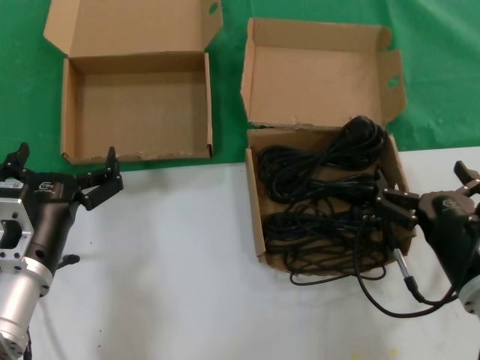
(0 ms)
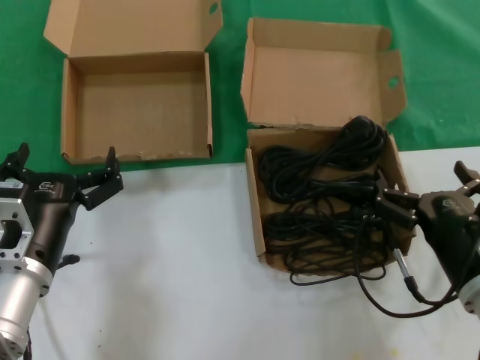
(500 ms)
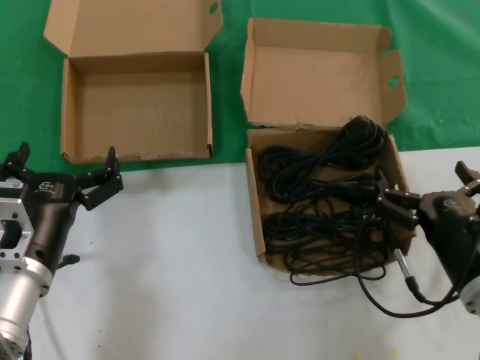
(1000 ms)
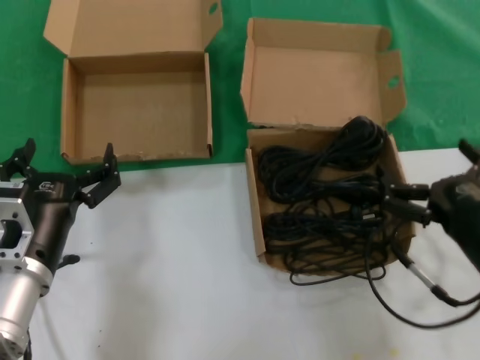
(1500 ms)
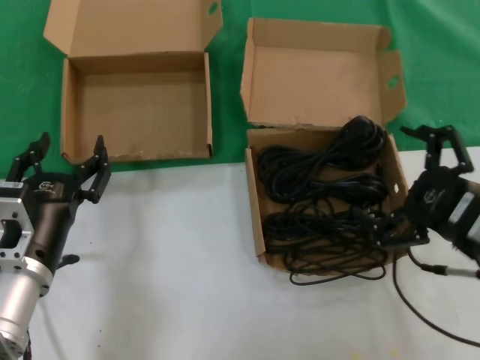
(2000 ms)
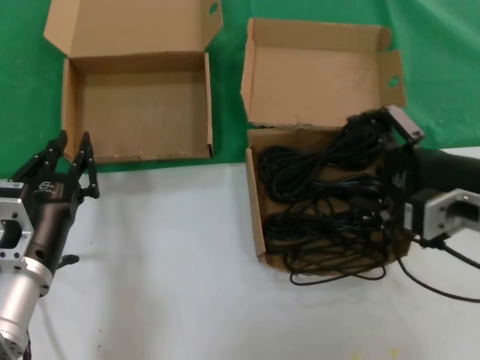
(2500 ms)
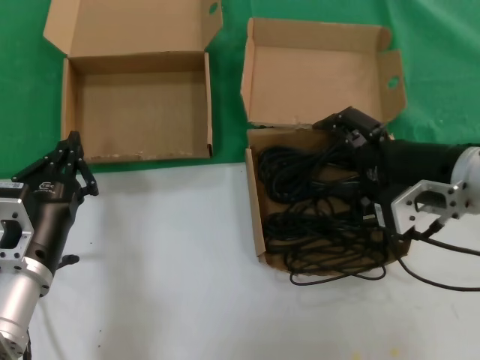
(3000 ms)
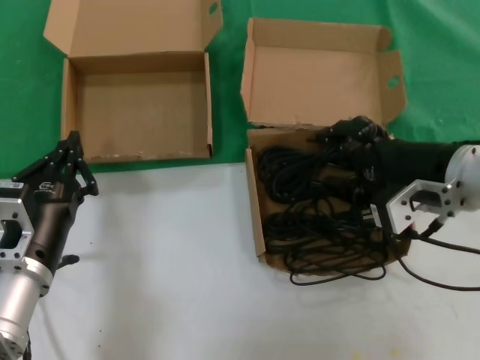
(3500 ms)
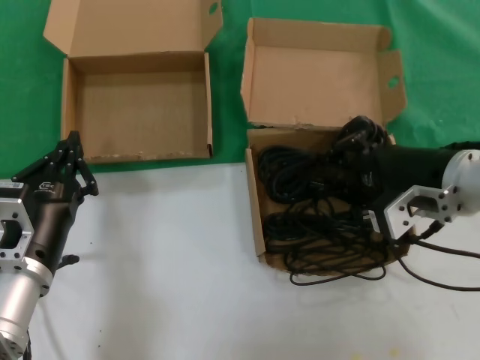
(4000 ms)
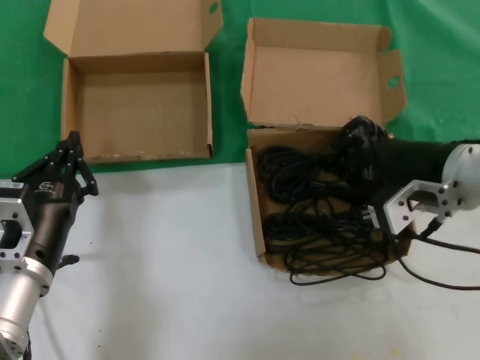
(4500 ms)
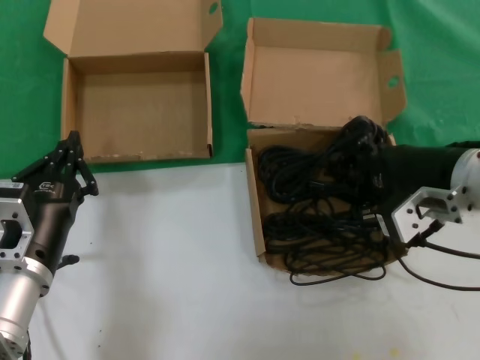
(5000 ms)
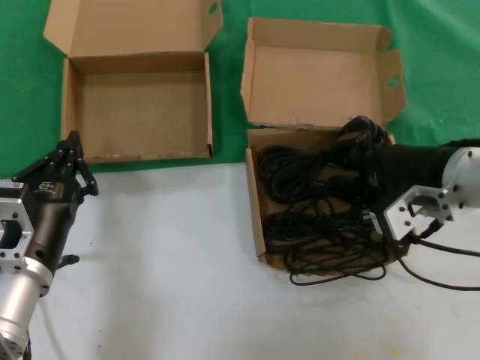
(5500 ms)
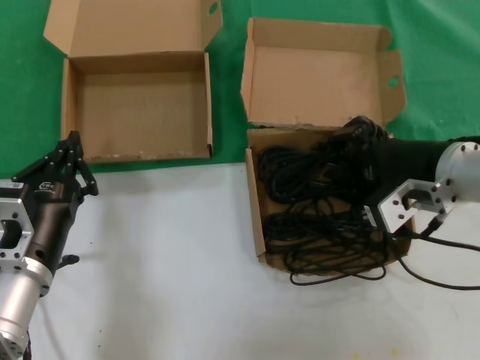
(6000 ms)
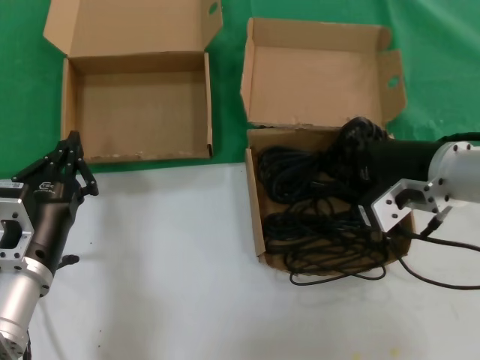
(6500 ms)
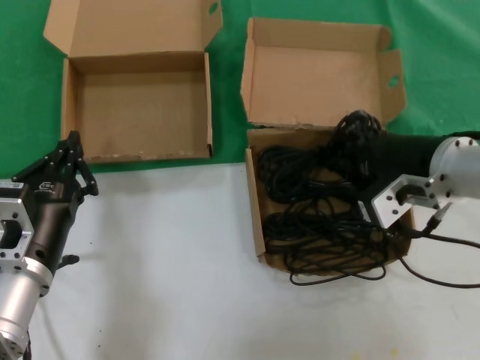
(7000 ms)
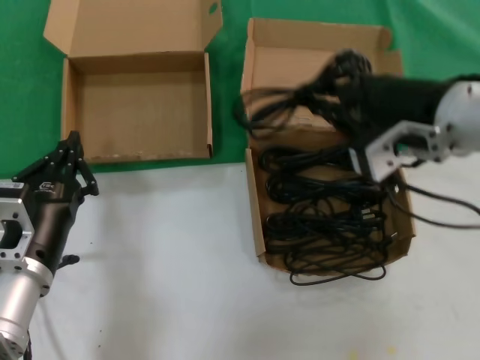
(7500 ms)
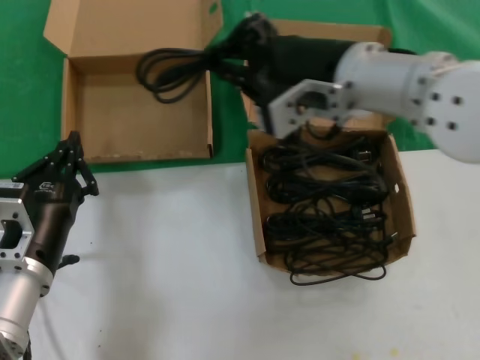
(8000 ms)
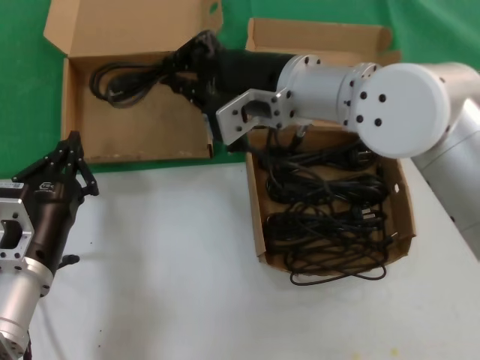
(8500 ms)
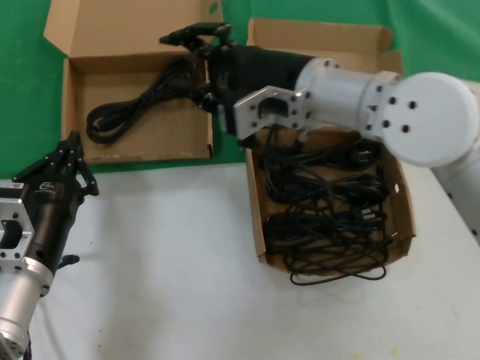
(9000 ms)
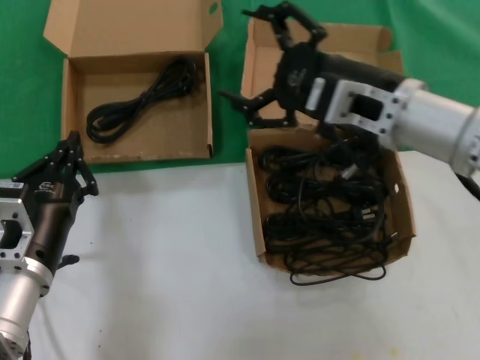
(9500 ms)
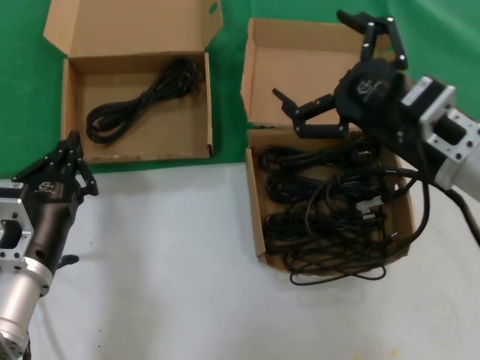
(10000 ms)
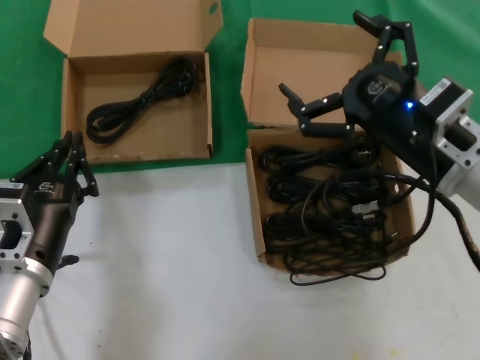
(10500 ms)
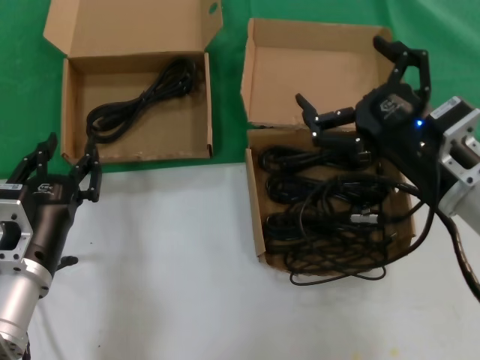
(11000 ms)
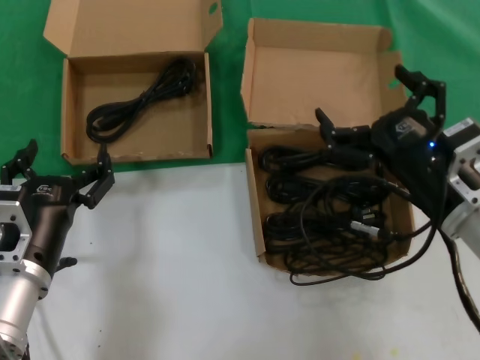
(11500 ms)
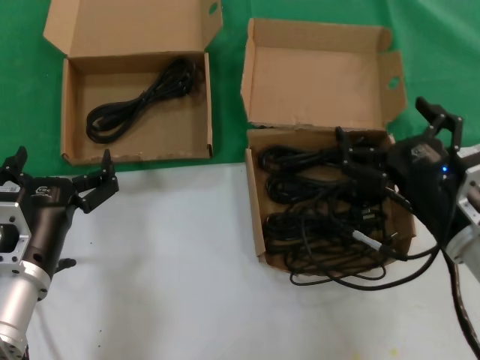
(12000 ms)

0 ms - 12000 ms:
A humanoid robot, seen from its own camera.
Task of the whole recording: take the parts from the box containing them and put them into an empty box.
Step, 0 ms - 6500 ms: Grasp the data cable.
Step, 7000 ms - 8500 ms: Place the data cable in the another box.
0 ms - 2000 ms: The right hand moves upward, about 10 cm.
2000 ms - 4000 ms: The right hand goes about 10 cm forward.
4000 ms - 6000 ms: There are only small adjustments of the hands.
6000 ms - 8000 ms: The right hand shifts roughly 15 cm to the left and upward.
8000 ms - 10000 ms: The right hand travels to the right and downward by about 15 cm.
10000 ms - 12000 ms: The right hand heads downward, covering some 10 cm.

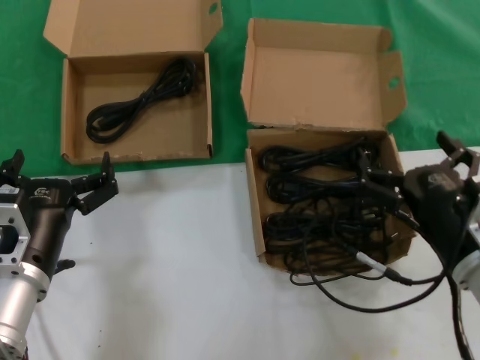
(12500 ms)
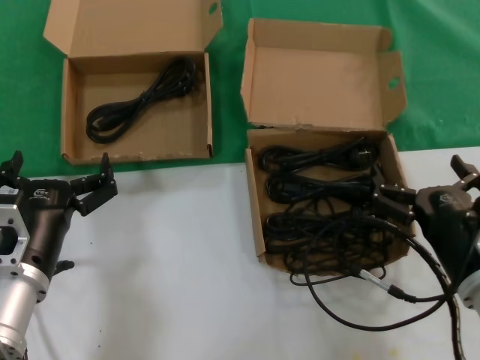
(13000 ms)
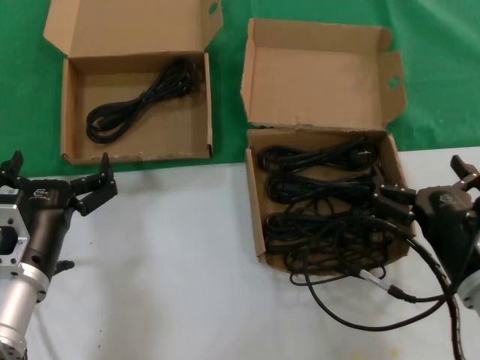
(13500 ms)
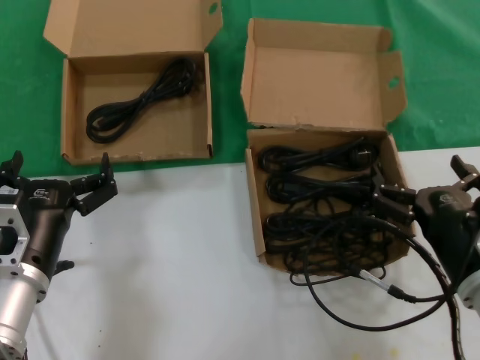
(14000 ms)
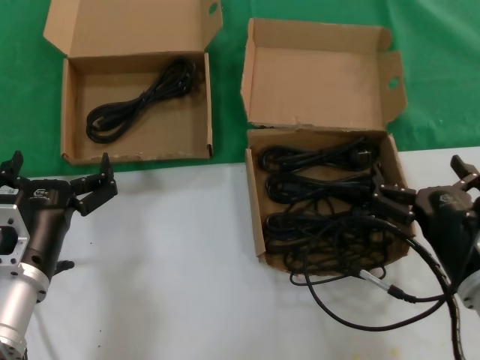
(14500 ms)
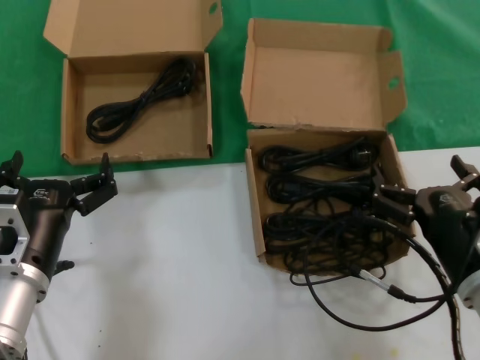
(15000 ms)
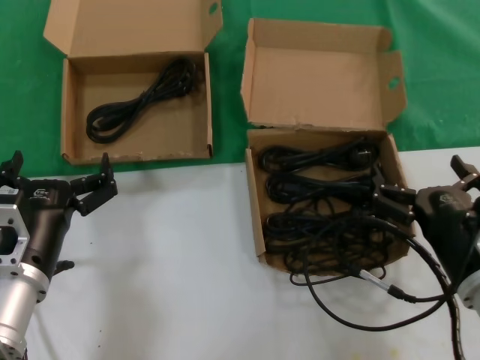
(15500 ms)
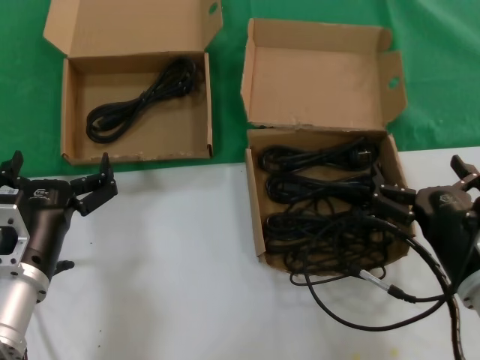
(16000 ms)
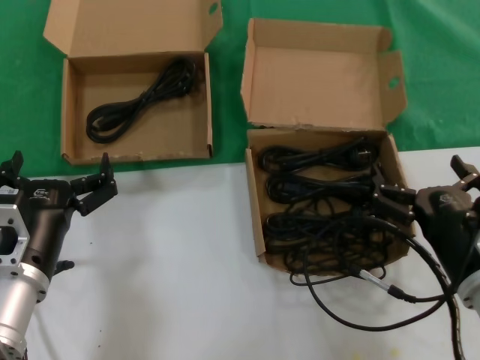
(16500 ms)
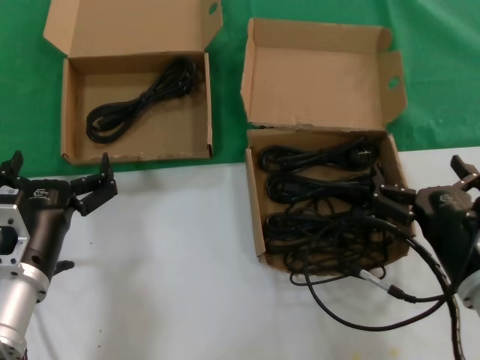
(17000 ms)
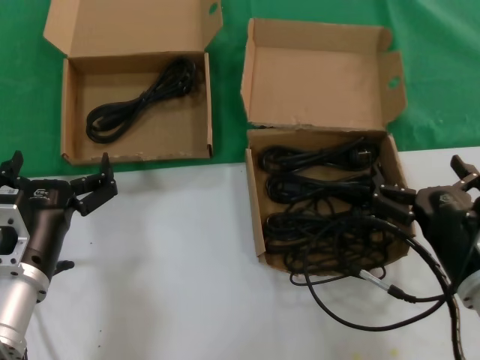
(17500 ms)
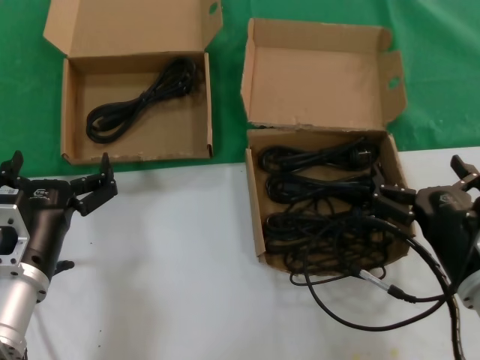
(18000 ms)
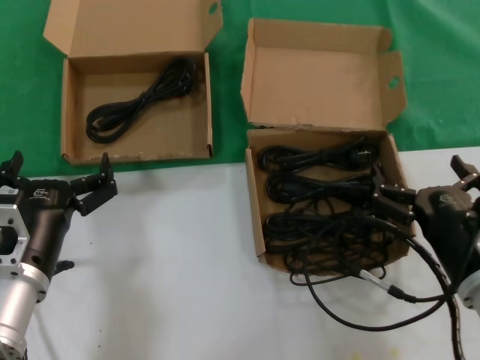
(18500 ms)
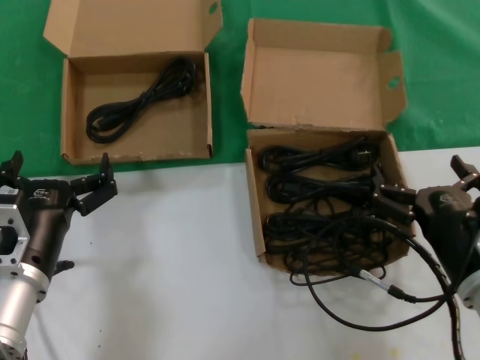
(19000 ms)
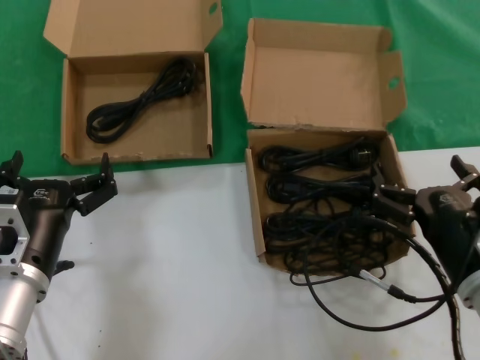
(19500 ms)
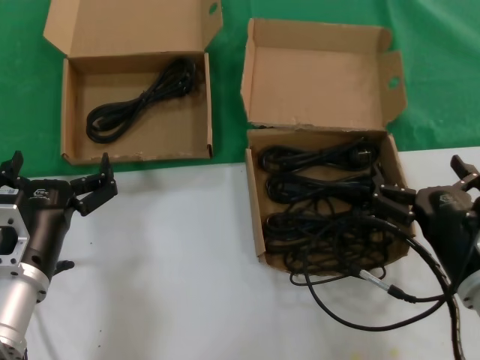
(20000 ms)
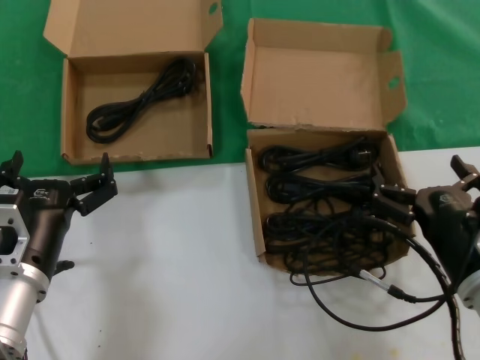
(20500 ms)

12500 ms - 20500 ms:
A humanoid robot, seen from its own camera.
Task of the whole recording: take the parts from the box containing them and put them into an empty box.
12500 ms - 14500 ms: The hands make only small movements.
14500 ms - 20500 ms: The two hands keep their place.

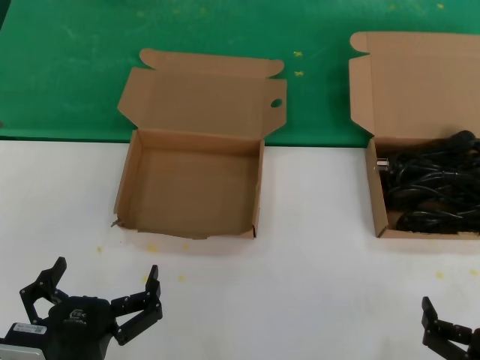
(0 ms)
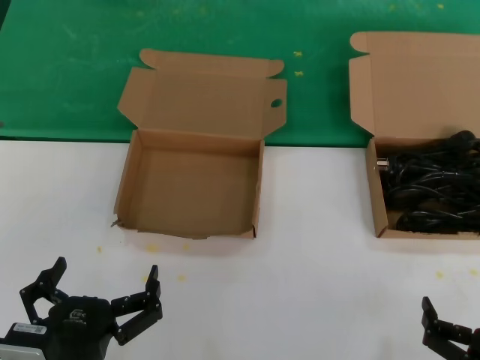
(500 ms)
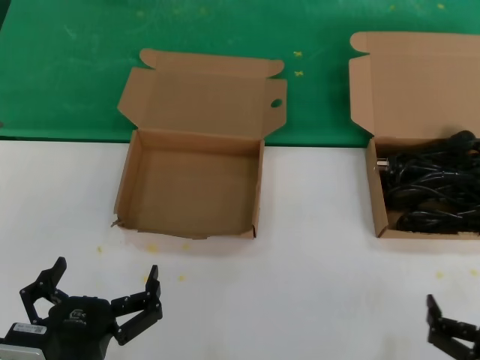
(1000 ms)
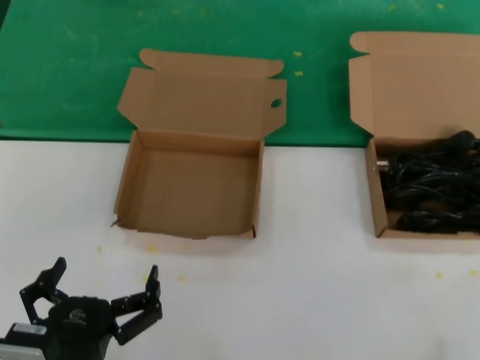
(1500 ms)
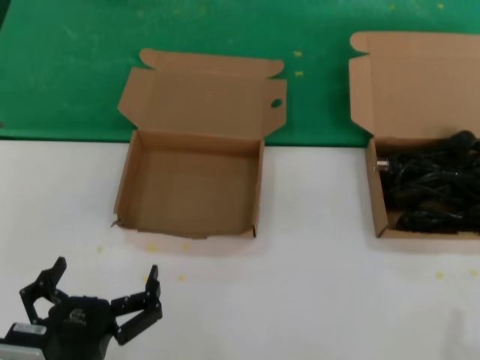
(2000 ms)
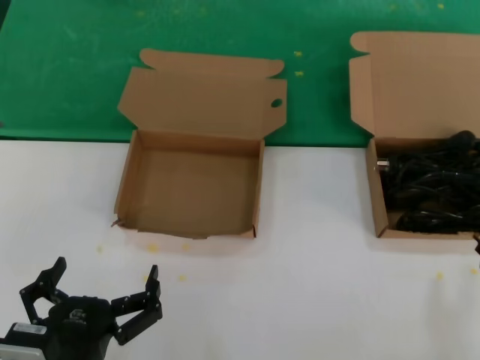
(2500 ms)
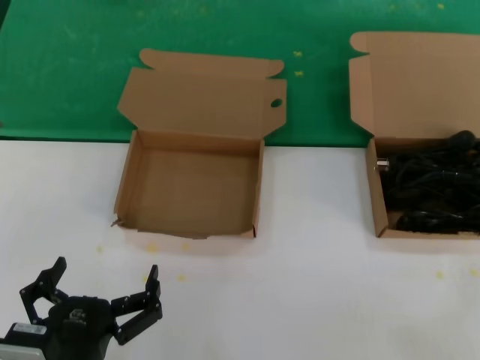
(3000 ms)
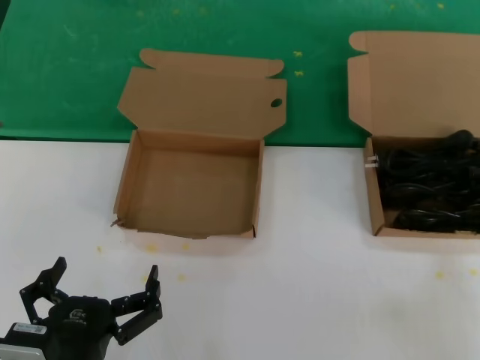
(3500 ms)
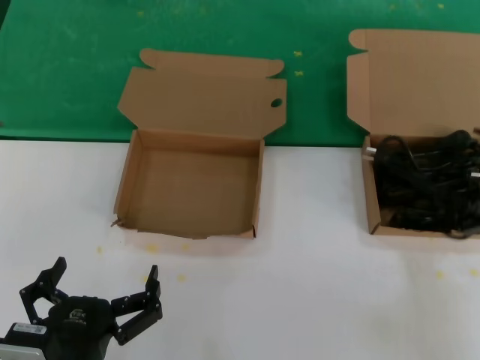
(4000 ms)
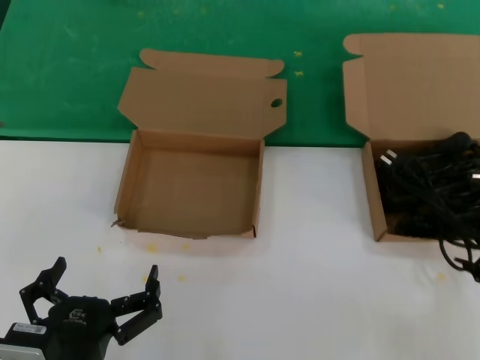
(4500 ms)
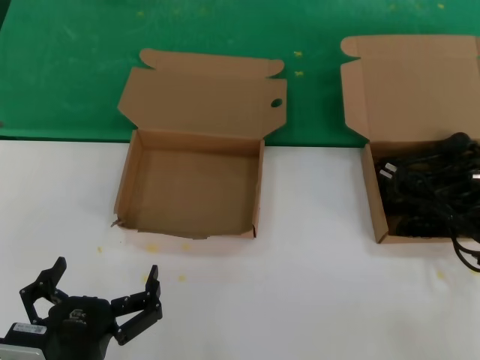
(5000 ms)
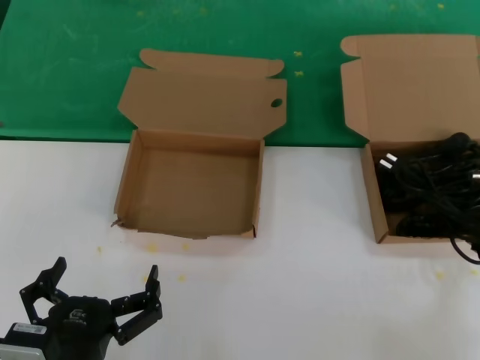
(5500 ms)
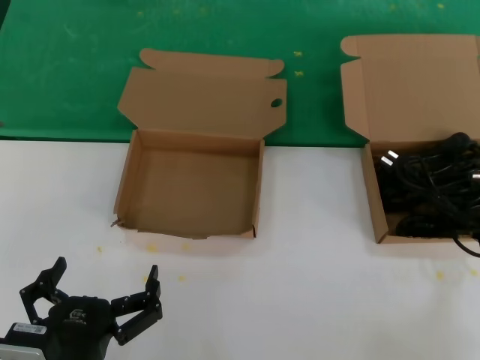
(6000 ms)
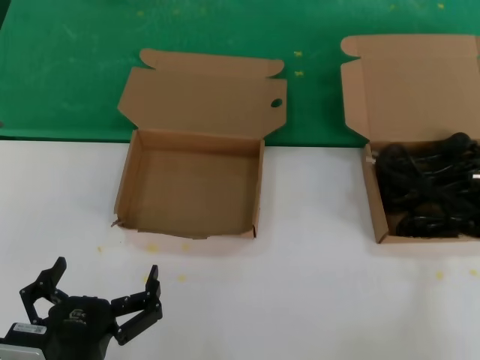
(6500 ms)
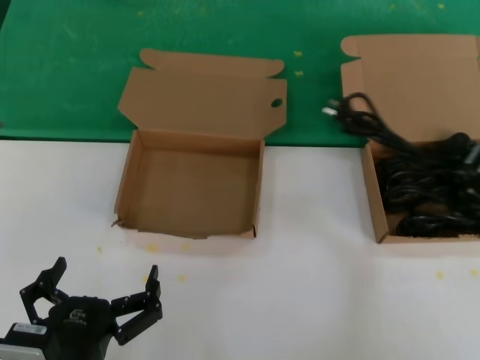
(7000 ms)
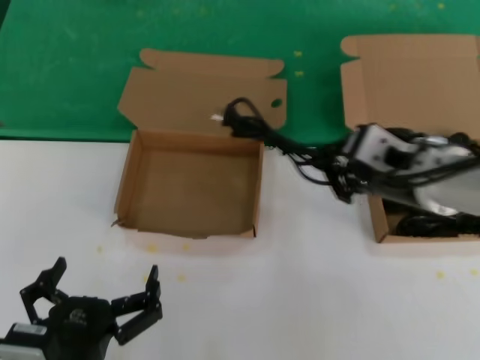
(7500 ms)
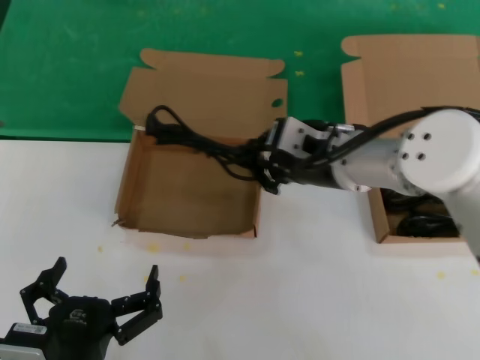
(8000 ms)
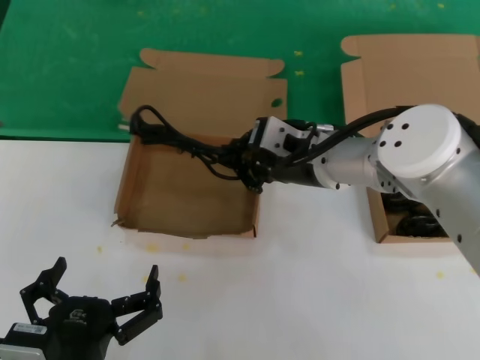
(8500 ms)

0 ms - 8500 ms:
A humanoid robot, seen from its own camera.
Task of the whole recording: take the parts from the box containing them and put them into an empty box.
Step, 0 ms - 3500 ms: Grasp the data cable.
0 ms - 2000 ms: The right hand is displaced to the right and upward by approximately 10 cm.
2000 ms - 4000 ms: The right hand travels upward and forward by about 20 cm.
4000 ms - 6500 ms: The right hand travels to the left and backward by about 10 cm.
6500 ms - 8500 ms: The right hand goes roughly 25 cm to the left and forward.
